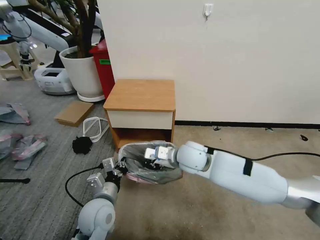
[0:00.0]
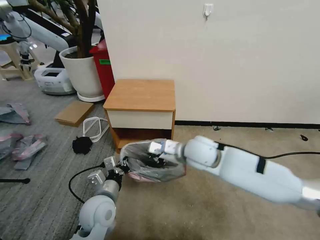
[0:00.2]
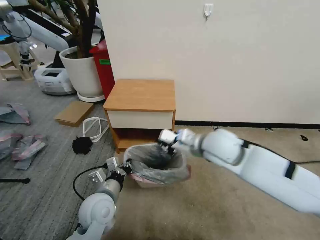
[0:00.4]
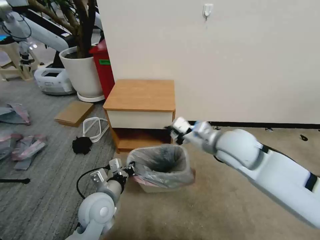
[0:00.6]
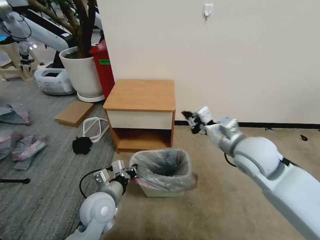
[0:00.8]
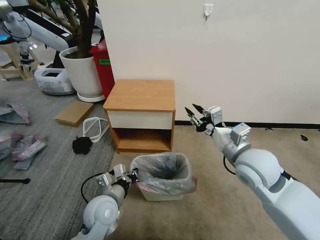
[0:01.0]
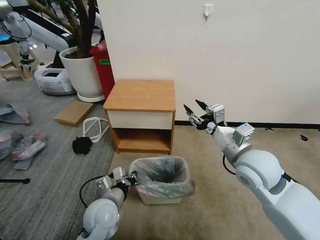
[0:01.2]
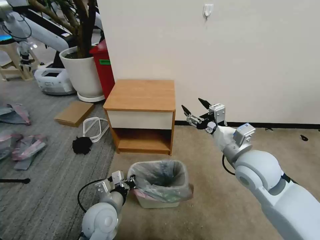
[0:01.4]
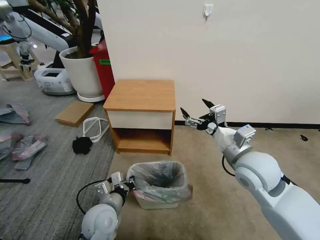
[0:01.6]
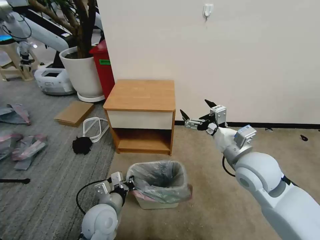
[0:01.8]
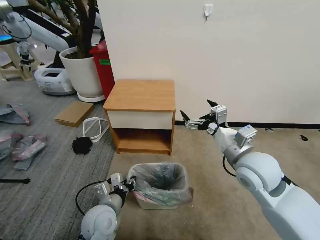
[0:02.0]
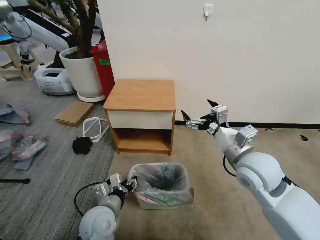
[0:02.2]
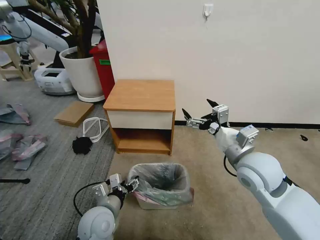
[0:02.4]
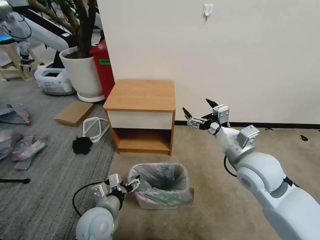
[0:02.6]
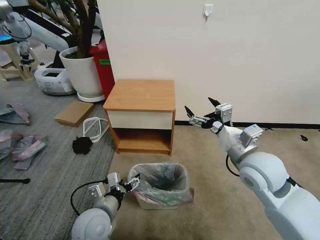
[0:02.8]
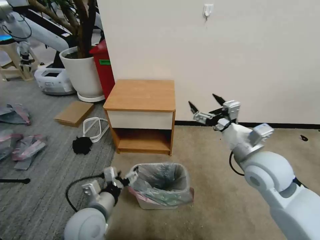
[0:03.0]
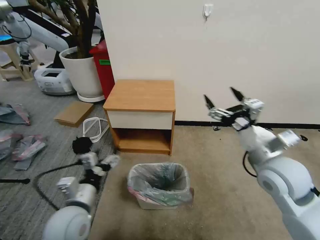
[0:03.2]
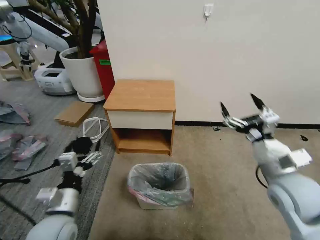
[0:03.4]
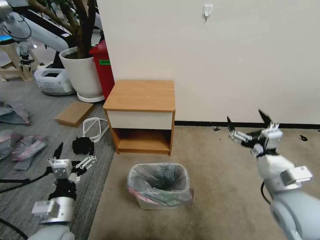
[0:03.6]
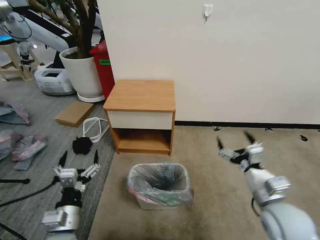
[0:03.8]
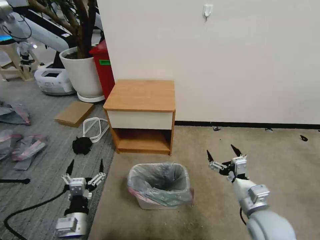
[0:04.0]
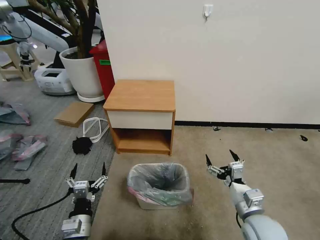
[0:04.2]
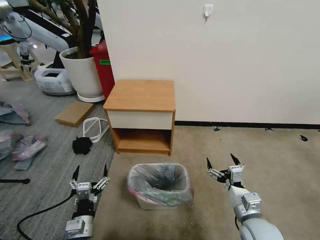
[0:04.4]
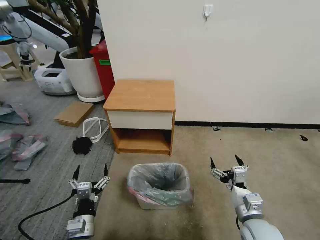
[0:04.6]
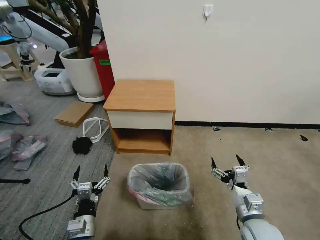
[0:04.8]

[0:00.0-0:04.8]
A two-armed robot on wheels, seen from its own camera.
Task of the whole recording: Pick up the garbage bag from the table and place it over the trash can.
0:00.0 to 0:01.6: The right gripper is displaced to the right, backward and upward by approximately 15 cm, and opens its fingers.
0:01.6 to 0:03.2: The right gripper goes some 5 cm to the right; the left gripper is displaced upward and to the left by approximately 10 cm, and opens its fingers.
0:03.2 to 0:04.8: The left gripper travels downward and backward by approximately 15 cm. Meanwhile the right gripper shifts roughly 20 cm downward and backward.
